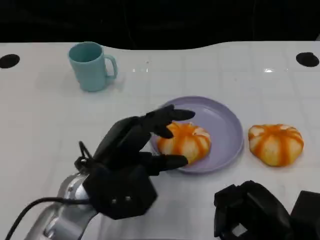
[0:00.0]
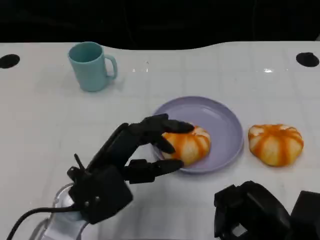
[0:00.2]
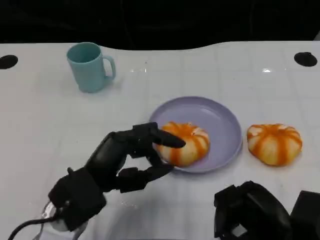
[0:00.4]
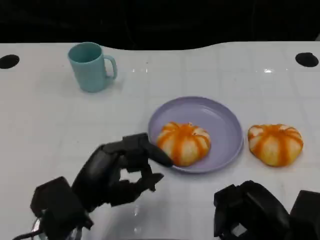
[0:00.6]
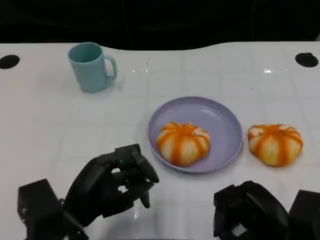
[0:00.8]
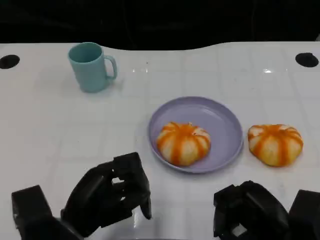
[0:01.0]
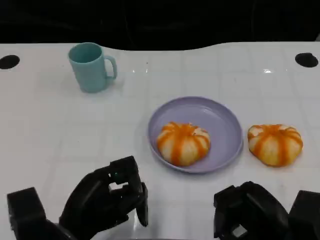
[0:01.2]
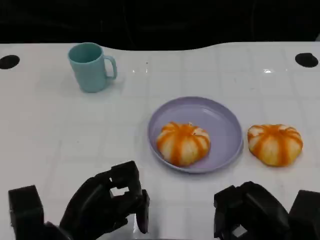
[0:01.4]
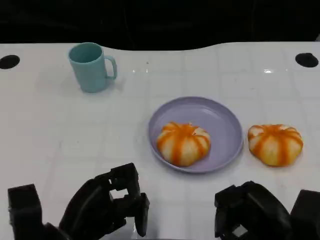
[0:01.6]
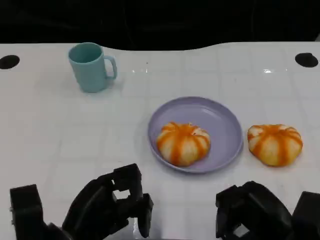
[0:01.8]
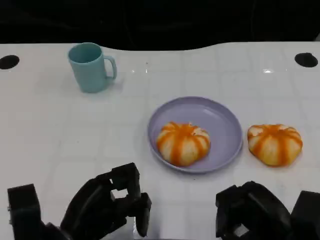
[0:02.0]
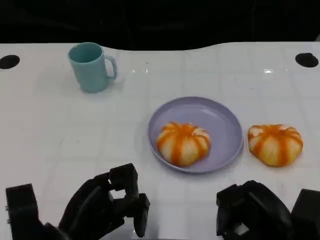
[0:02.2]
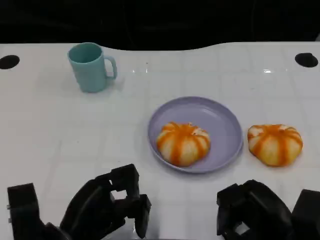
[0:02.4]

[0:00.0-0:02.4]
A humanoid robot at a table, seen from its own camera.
Task of the whole recording: Grasp the bread from the table and place it into the plate.
0:00.0 to 0:01.2: The left hand heads backward and downward, covering roughly 10 cm.
0:01.2 to 0:02.4: The hands move only a little.

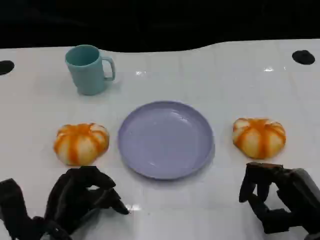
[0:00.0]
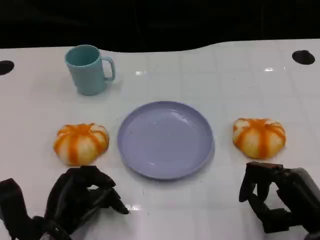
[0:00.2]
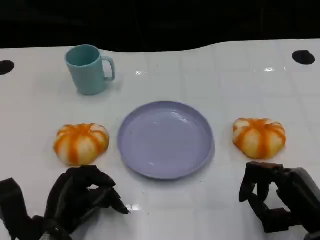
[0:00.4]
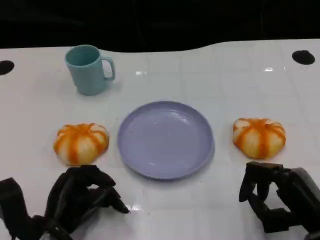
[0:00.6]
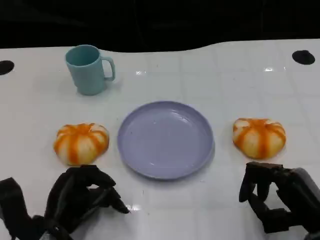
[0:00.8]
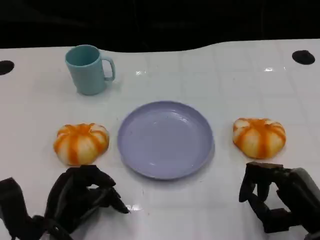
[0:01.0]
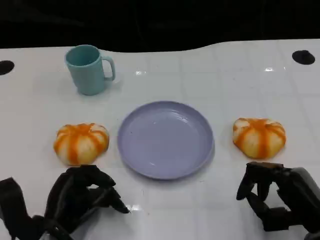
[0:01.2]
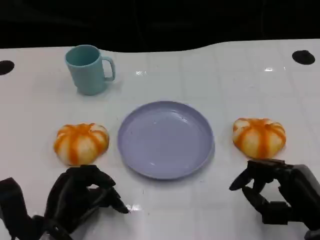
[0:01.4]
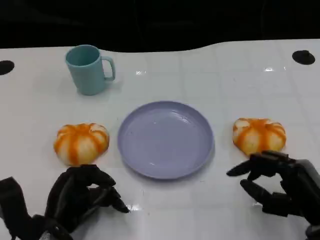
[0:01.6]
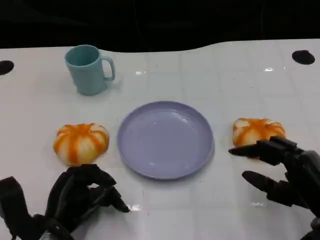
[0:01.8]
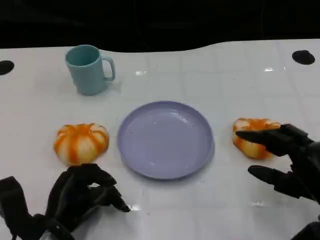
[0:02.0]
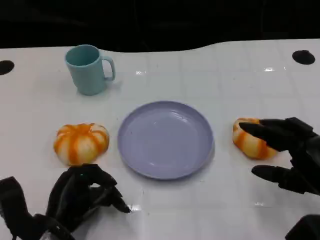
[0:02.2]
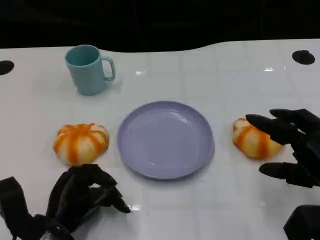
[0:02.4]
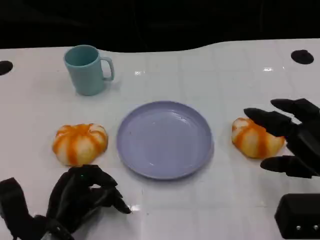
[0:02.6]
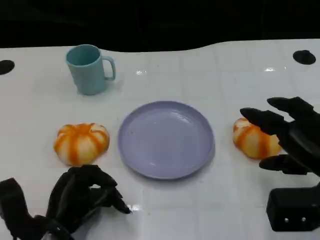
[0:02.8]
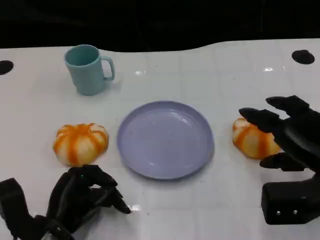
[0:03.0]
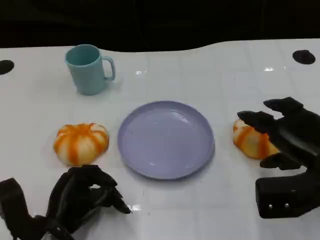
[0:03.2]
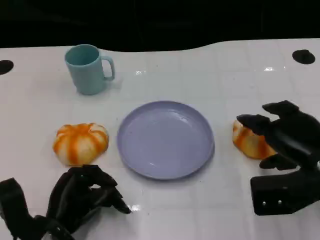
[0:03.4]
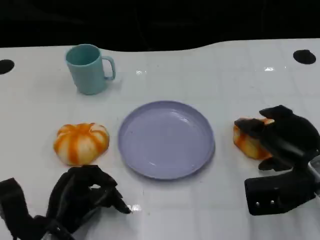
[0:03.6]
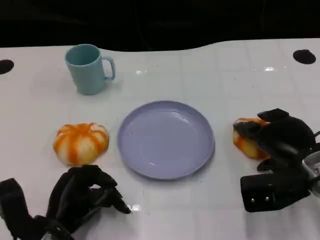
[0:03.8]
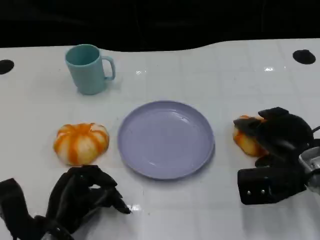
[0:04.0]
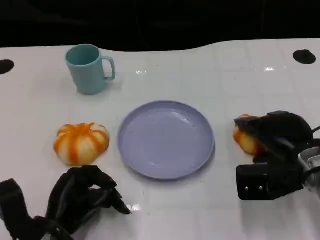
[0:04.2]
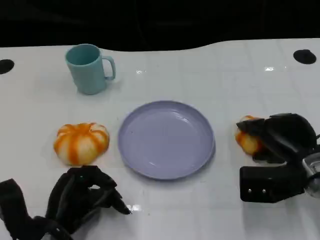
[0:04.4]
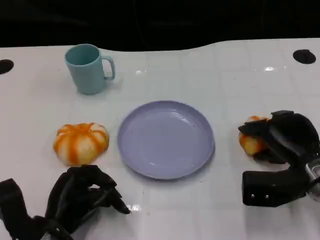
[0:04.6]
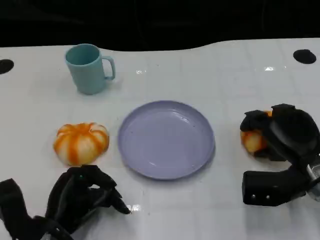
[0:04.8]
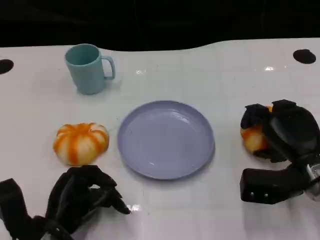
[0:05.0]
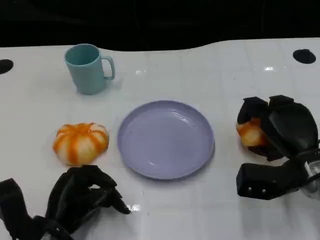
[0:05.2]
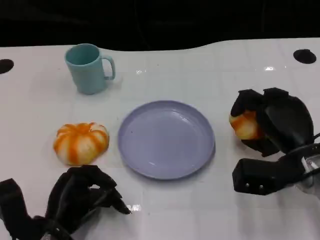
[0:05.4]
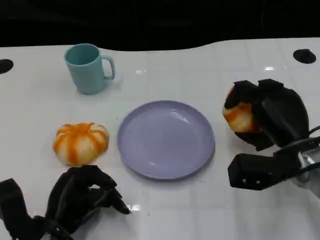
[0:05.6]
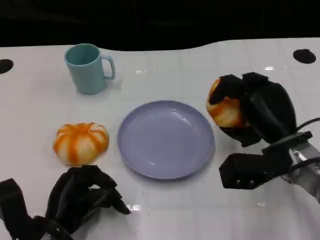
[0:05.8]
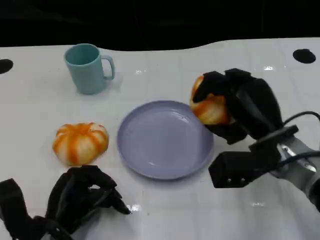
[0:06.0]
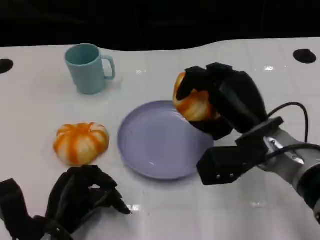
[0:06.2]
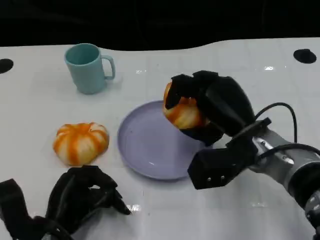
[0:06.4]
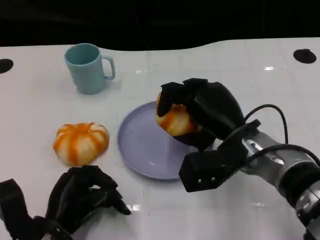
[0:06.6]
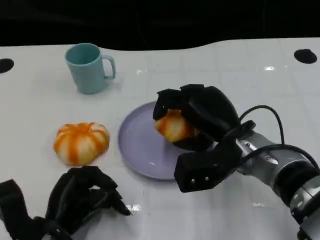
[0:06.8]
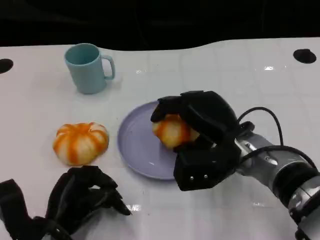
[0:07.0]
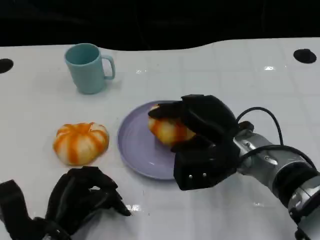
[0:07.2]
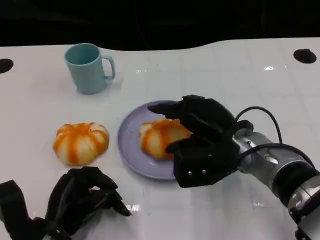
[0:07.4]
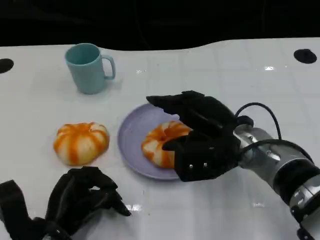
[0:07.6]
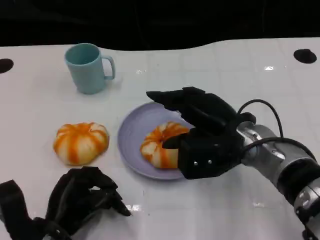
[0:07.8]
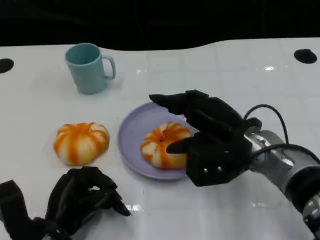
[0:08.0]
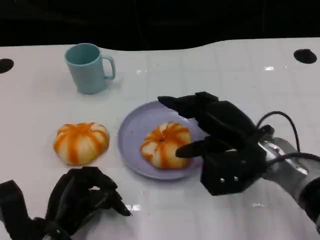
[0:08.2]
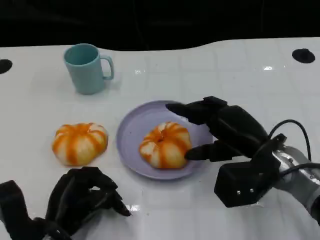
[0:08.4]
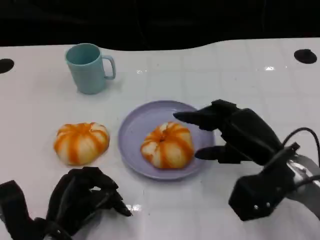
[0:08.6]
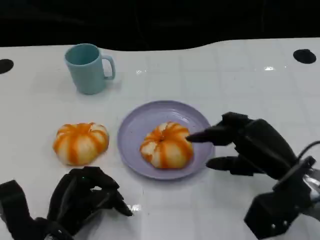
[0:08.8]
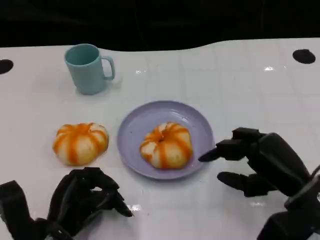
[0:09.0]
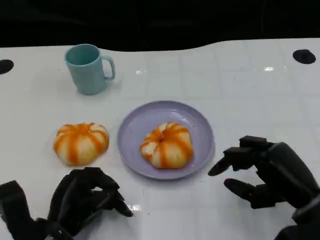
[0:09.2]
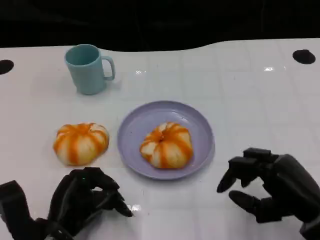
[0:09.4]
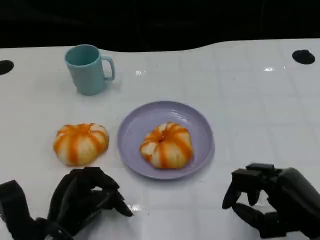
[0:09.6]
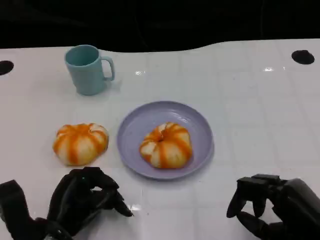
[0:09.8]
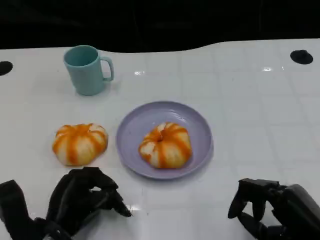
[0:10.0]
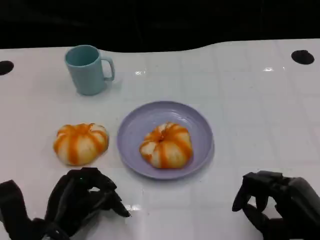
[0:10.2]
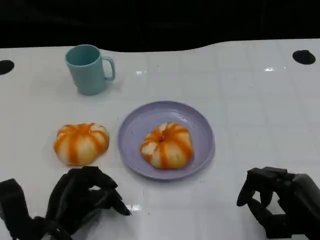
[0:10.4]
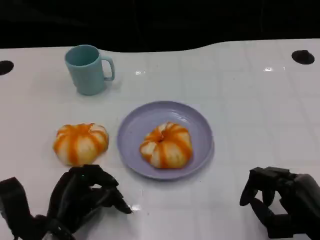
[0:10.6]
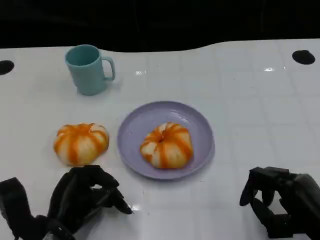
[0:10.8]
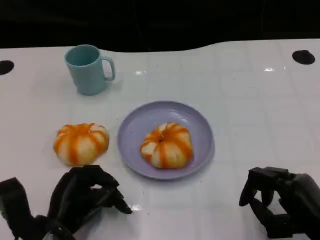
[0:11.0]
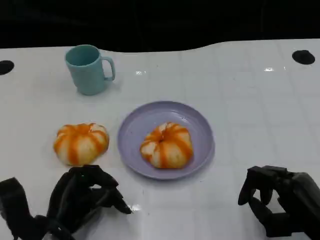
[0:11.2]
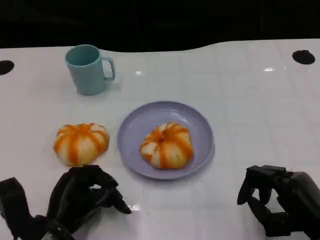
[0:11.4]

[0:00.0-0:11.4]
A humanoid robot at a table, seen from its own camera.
Task of the whole recording: Grasp the bread from the table and place it into the plate.
0:00.0 to 0:01.4: Both hands stay put.
0:01.4 to 0:02.8: The right hand heads upward, covering about 5 cm.
0:02.8 to 0:04.2: The right hand moves forward and downward, approximately 10 cm.
0:05.6 to 0:07.2: The right hand heads to the left, covering some 10 cm.
0:07.2 to 0:08.6: The right hand heads to the right, covering about 5 cm.
0:08.6 to 0:10.0: The right hand travels backward and to the right by roughly 10 cm.
0:10.0 to 0:11.4: The hands make only small movements.

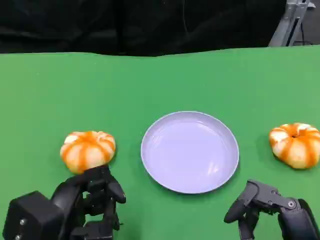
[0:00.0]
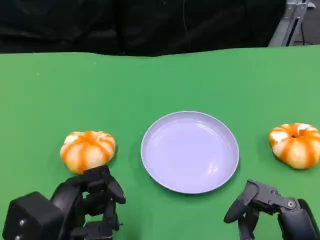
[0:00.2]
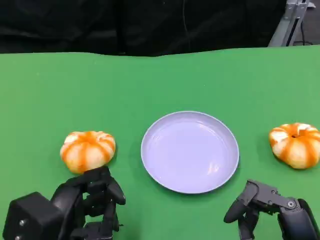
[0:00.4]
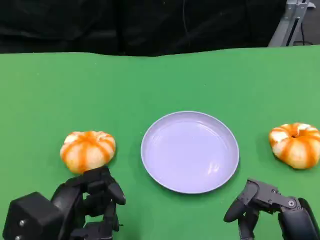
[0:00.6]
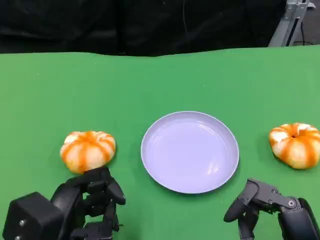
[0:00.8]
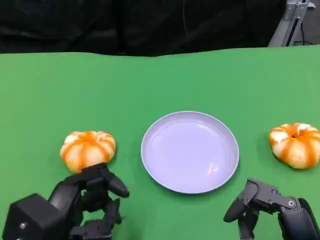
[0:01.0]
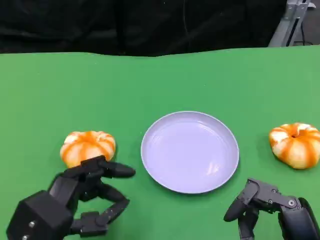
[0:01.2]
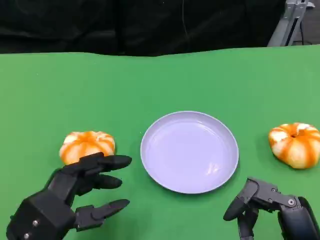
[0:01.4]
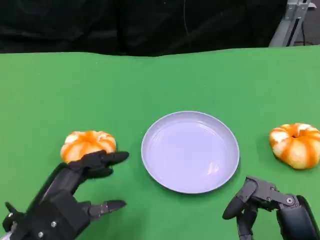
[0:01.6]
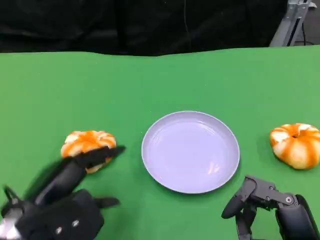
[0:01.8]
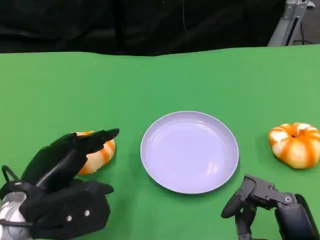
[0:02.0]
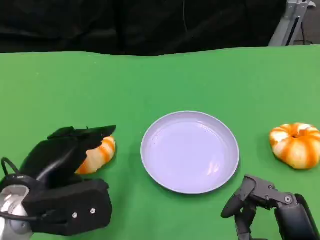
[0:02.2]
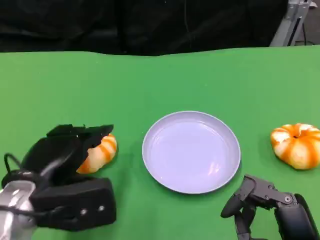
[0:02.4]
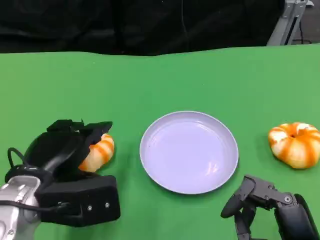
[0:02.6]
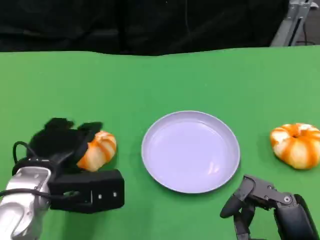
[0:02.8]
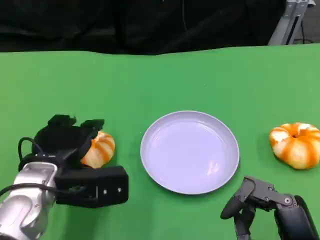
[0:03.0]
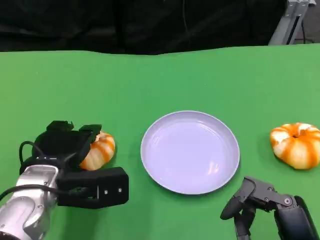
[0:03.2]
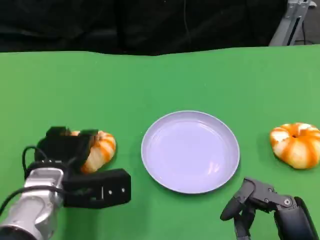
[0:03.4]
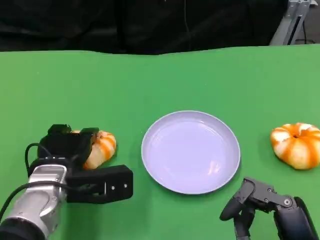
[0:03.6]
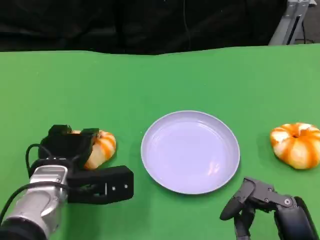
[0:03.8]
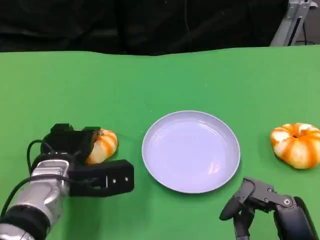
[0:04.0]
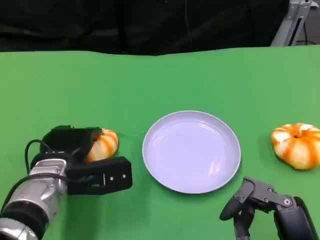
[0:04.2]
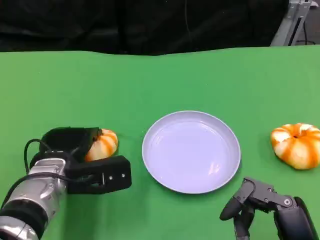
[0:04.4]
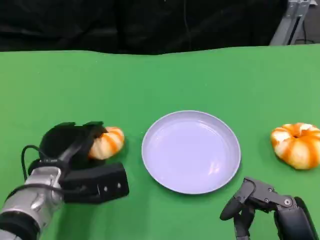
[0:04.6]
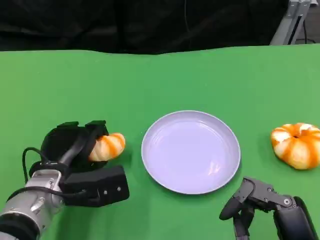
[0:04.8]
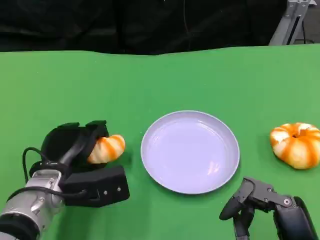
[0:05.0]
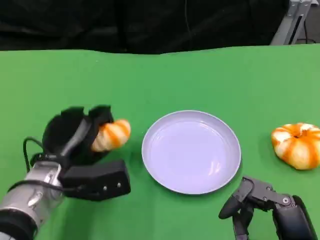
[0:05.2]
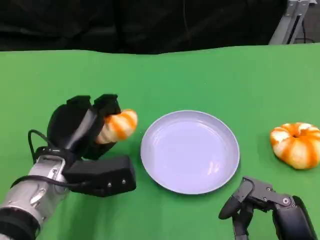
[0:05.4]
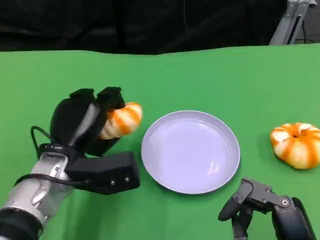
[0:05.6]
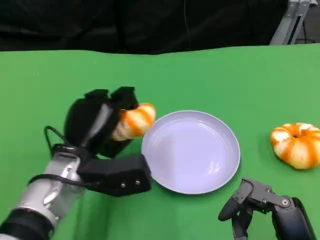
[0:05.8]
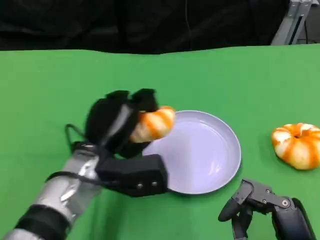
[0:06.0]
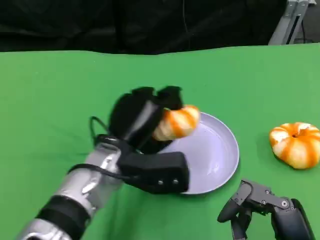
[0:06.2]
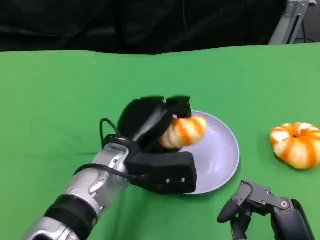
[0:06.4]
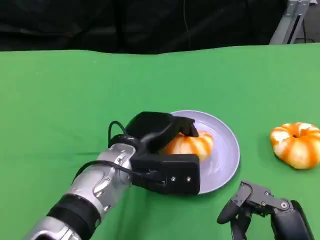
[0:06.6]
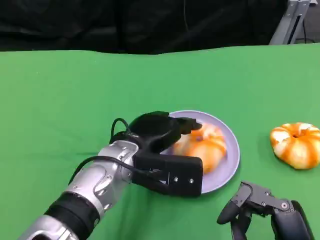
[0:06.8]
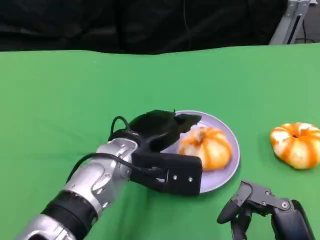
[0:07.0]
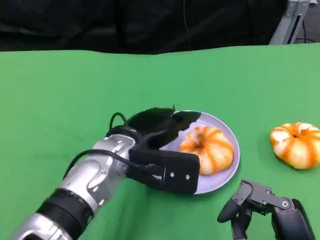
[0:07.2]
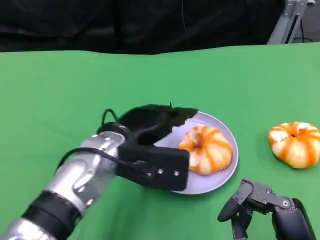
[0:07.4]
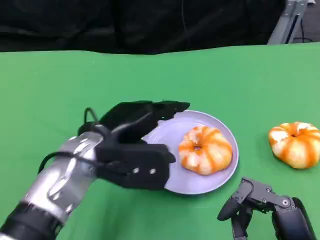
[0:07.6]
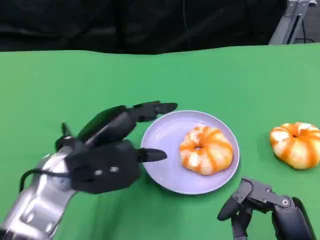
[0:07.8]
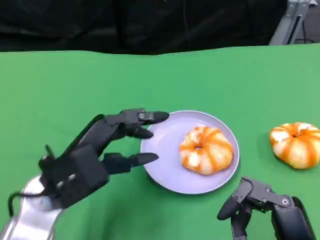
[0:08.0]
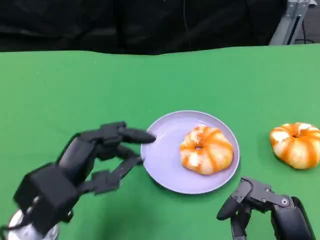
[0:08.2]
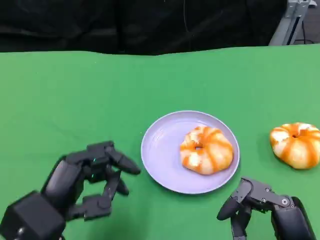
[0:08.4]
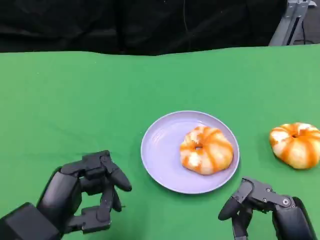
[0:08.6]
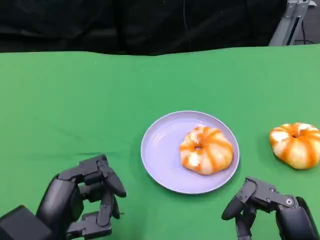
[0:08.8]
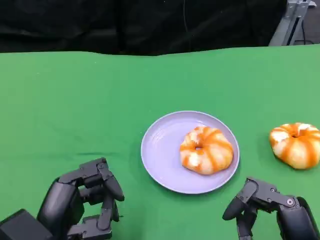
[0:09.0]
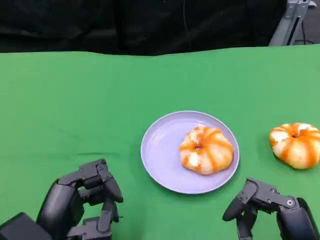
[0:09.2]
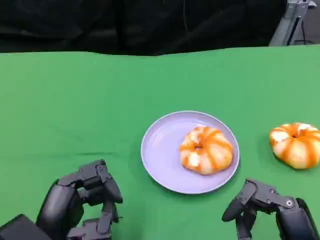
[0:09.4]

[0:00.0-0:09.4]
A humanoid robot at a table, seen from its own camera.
Task of the whole recording: Grasp the bread from the table and place it into the plate.
0:01.6 to 0:03.2: The left hand heads forward, covering some 10 cm.
0:03.2 to 0:04.8: The hands make only small movements.
0:04.8 to 0:06.2: The left hand heads to the right and upward, covering some 10 cm.
0:06.2 to 0:07.8: The left hand goes about 10 cm to the left.
0:07.8 to 0:09.4: The left hand travels backward and downward by approximately 10 cm.
